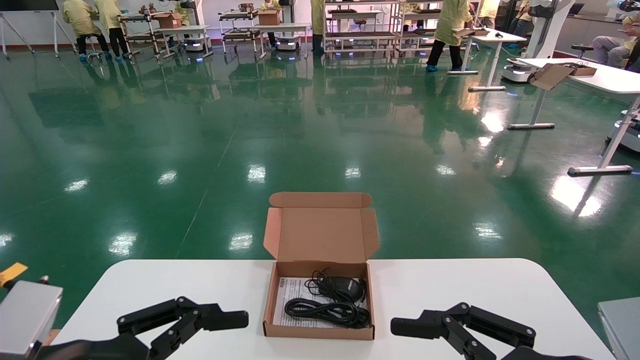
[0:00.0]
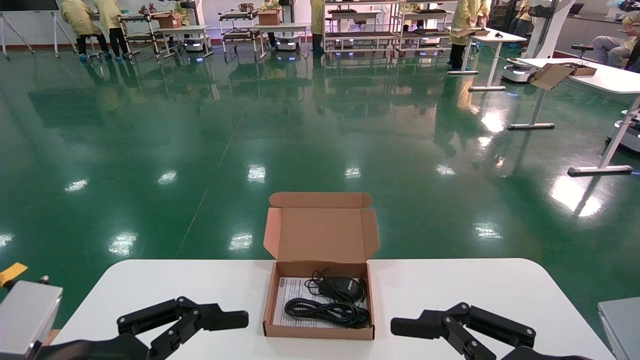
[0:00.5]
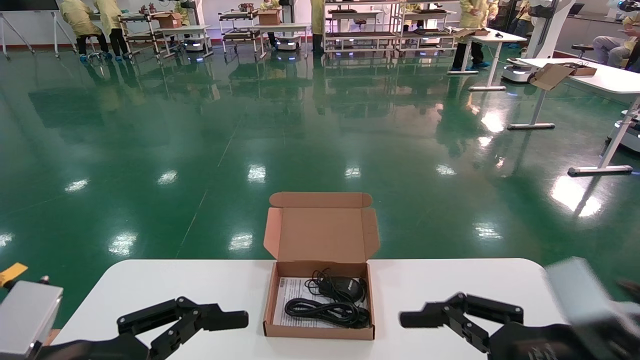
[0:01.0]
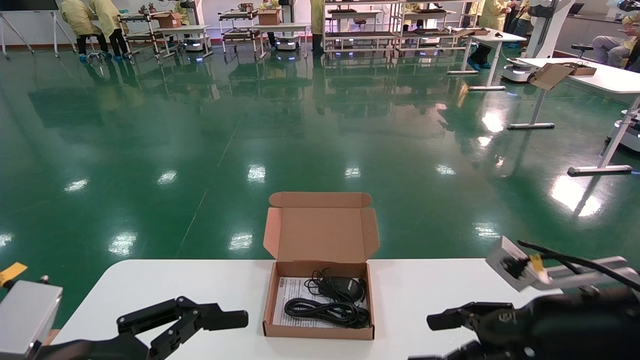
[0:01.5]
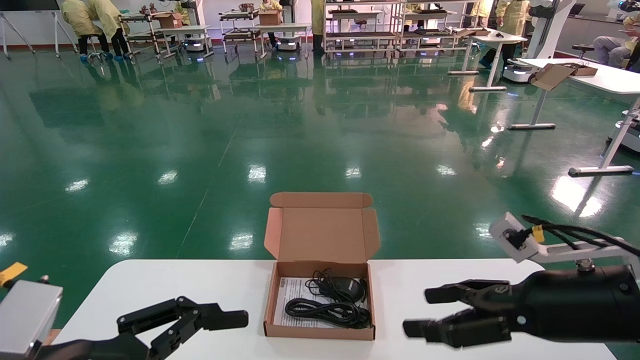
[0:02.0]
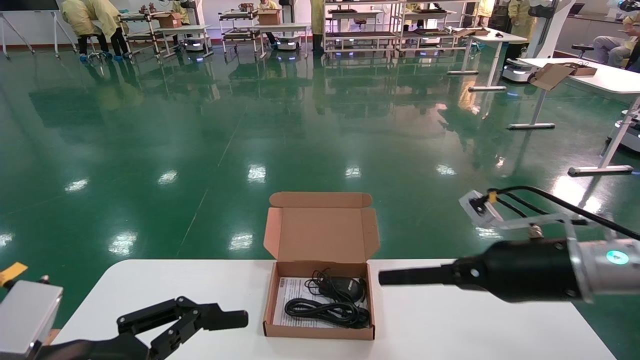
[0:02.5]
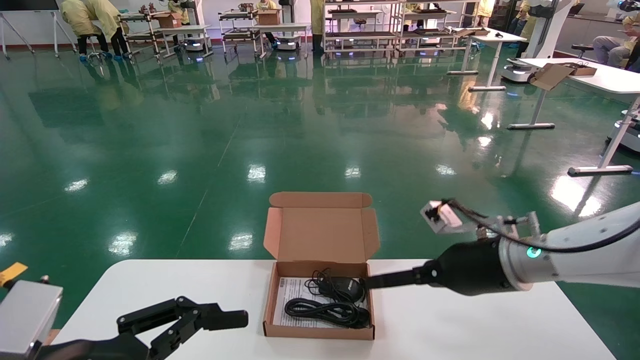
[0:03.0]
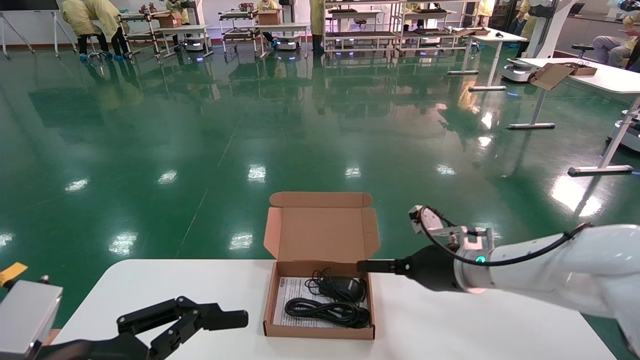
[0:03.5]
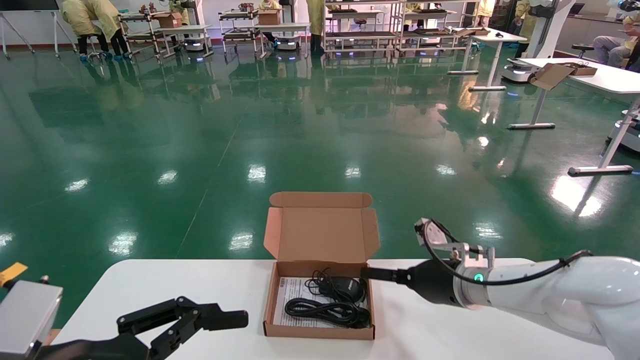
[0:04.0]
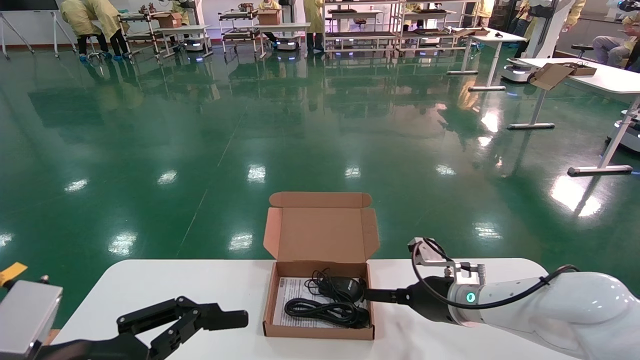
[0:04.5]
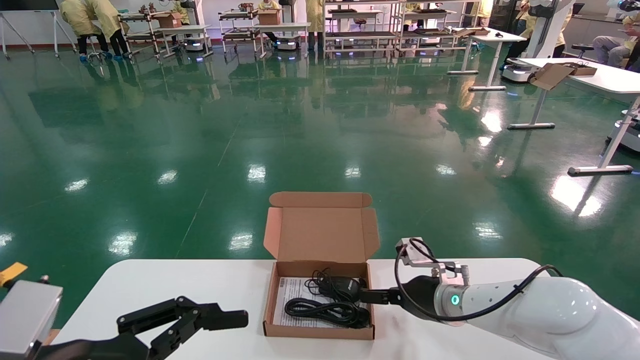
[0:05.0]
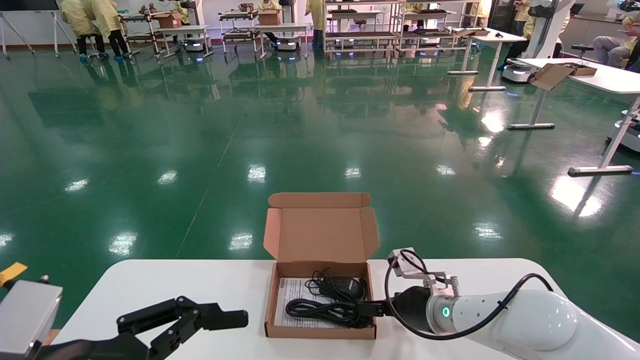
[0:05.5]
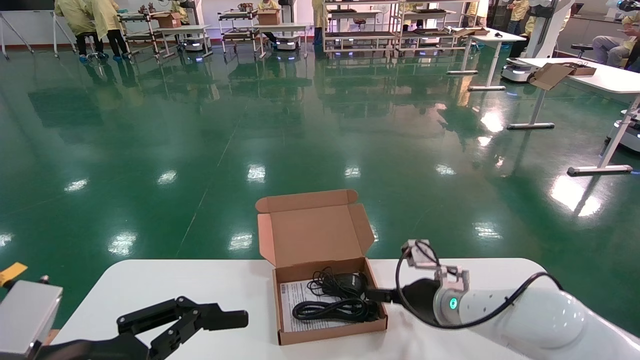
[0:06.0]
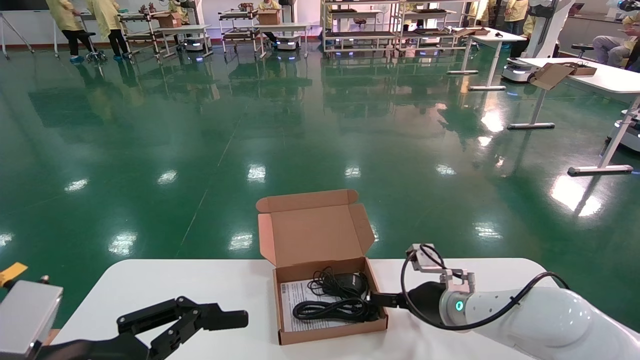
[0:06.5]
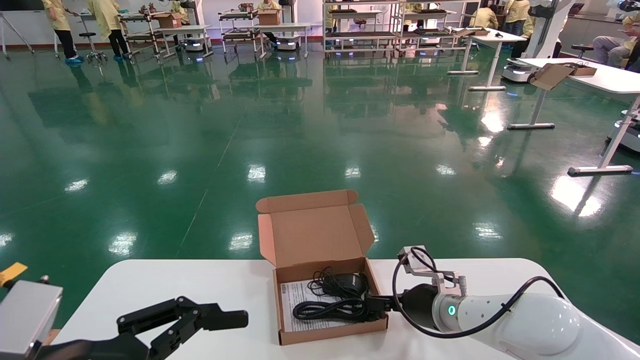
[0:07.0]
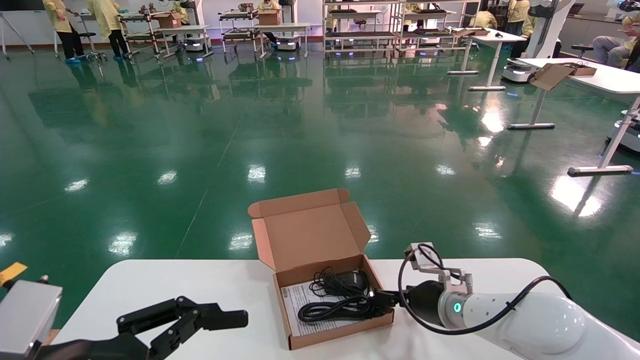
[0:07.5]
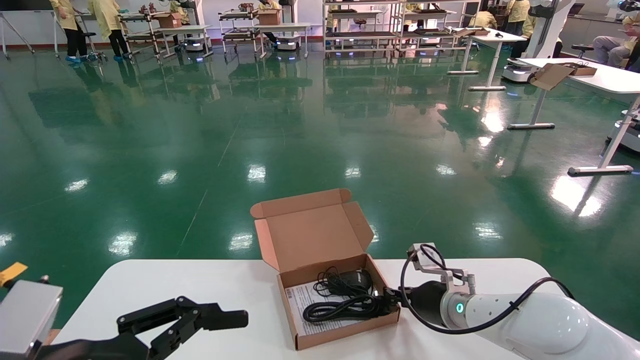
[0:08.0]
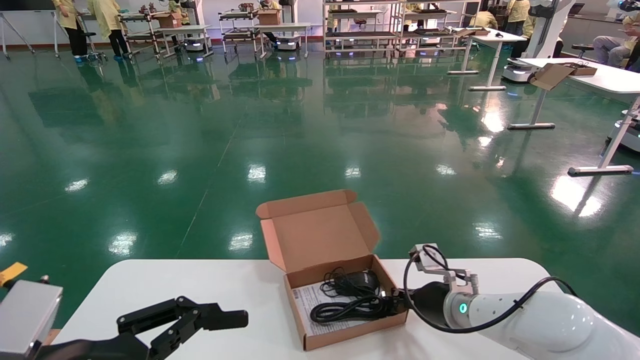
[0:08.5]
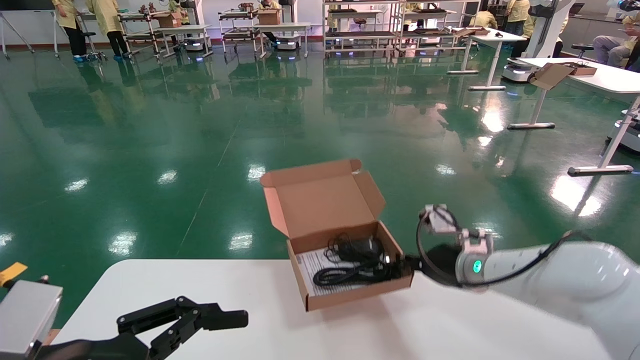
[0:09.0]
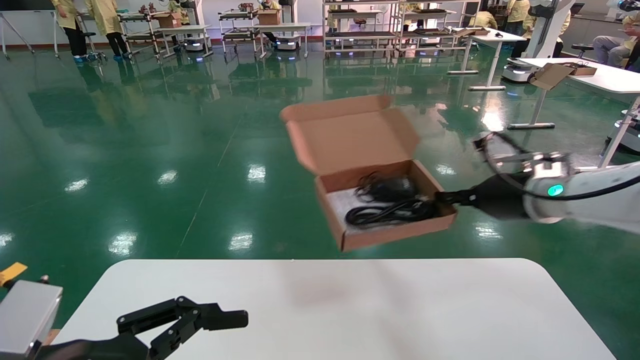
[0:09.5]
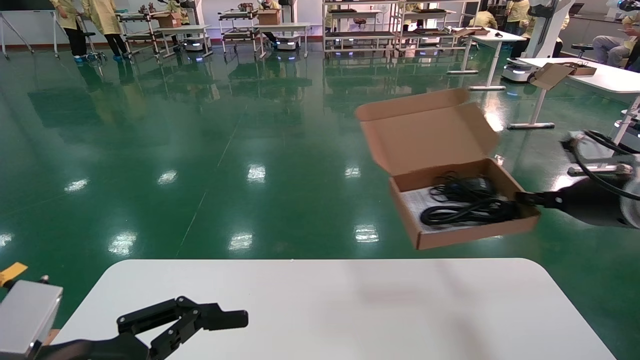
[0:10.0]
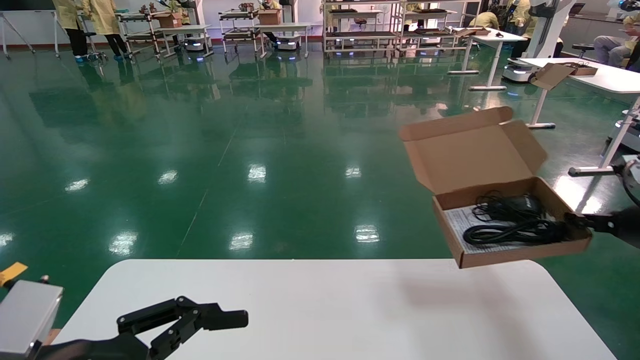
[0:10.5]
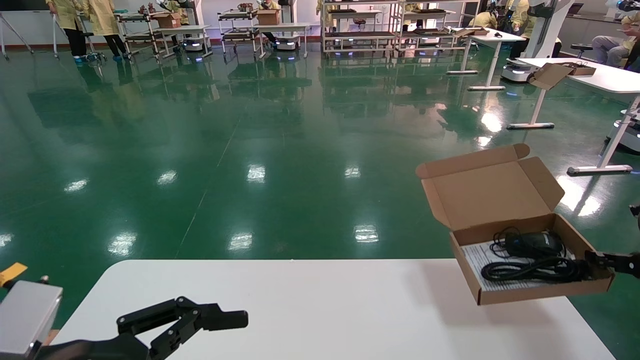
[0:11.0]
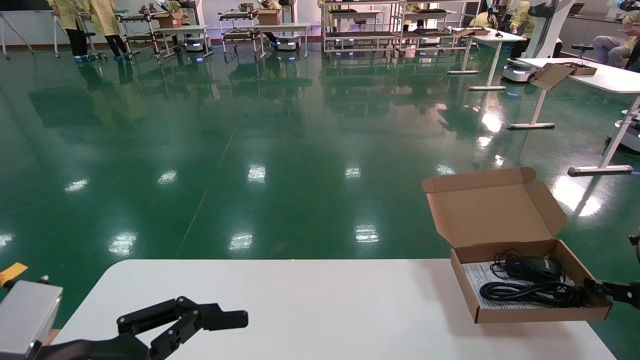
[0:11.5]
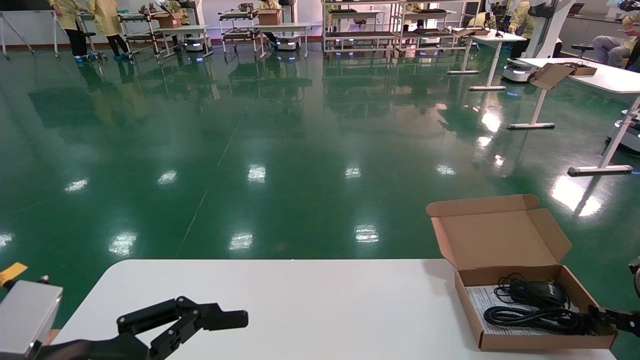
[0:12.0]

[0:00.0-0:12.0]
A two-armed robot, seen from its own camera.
Task of the whole recording: move the position of the storage box with accessories on the table.
Step, 0:01.0 to 0:08.5: Grab and pick up the open mouse box from the accessory packaging area.
0:00.0 to 0:02.0: The right gripper is displaced forward by approximately 15 cm.
0:02.0 to 0:04.0: The right gripper shifts about 20 cm forward and to the left.
0:04.0 to 0:06.0: The grippers move only a little.
0:06.0 to 0:08.0: The right gripper closes.
0:08.0 to 0:10.0: The right gripper shifts roughly 30 cm to the right and upward, and closes up.
0:10.0 to 0:12.0: The right gripper is displaced downward and to the right by some 20 cm.

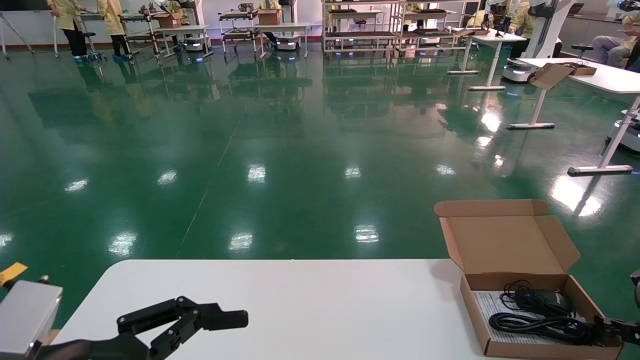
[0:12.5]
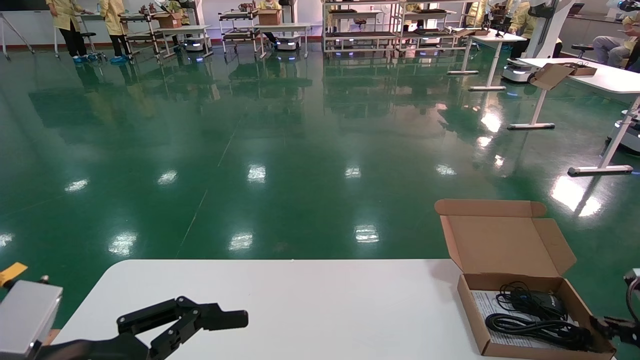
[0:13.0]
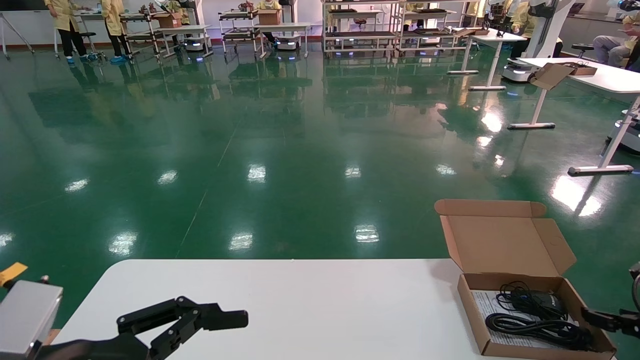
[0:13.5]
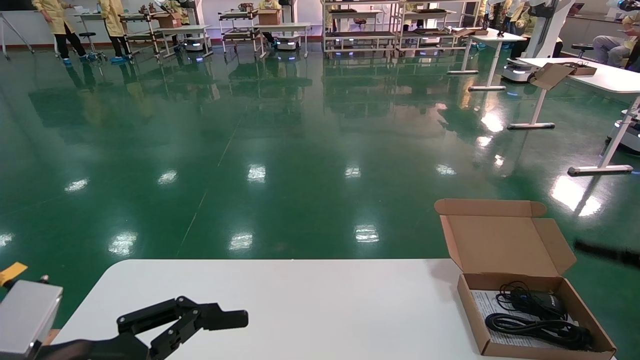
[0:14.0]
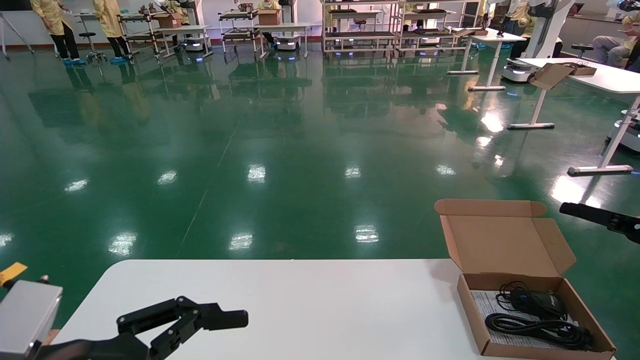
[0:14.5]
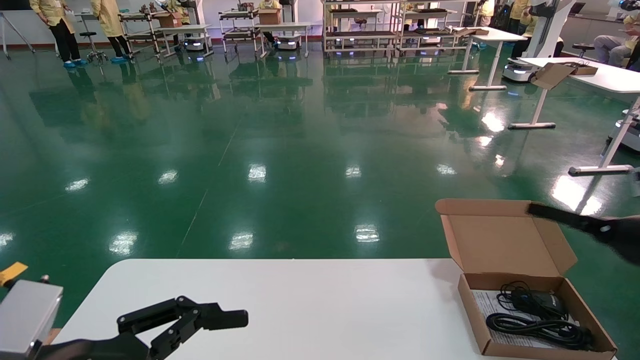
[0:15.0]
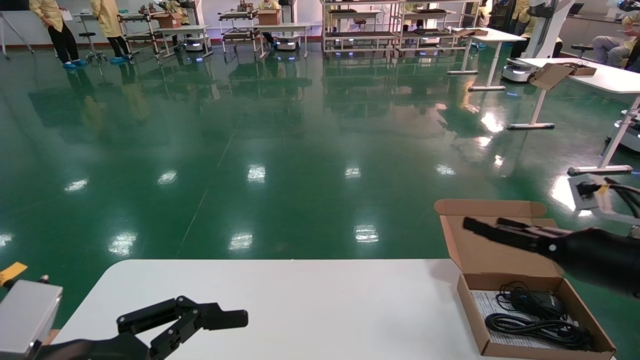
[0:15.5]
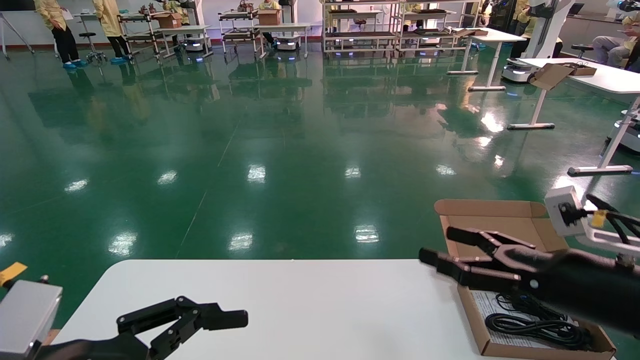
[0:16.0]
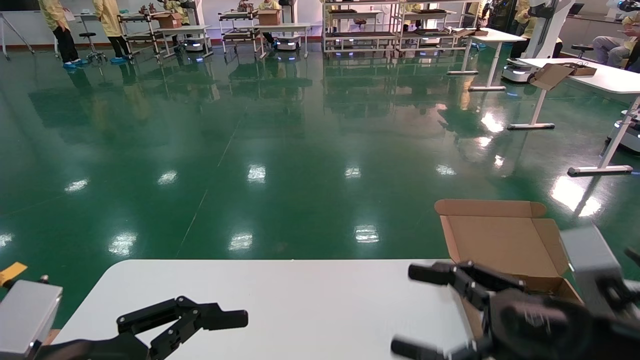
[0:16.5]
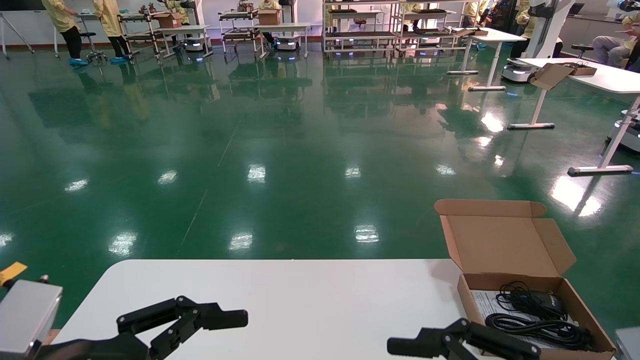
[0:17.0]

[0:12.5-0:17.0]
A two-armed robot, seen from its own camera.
Task of the whole recording: move the position of the storage box with accessories on the table.
0:12.5 to 0:14.5: The right gripper heads upward, covering about 15 cm, and opens its fingers.
0:14.5 to 0:17.0: The right gripper heads to the left and backward, covering some 30 cm.
